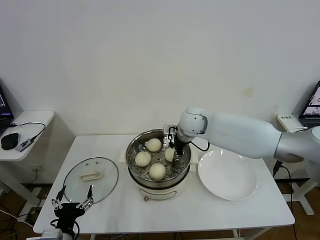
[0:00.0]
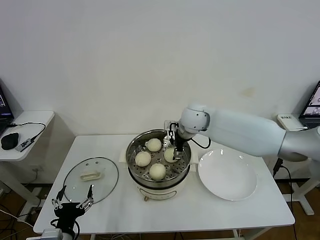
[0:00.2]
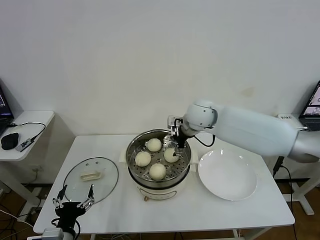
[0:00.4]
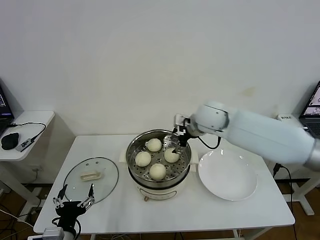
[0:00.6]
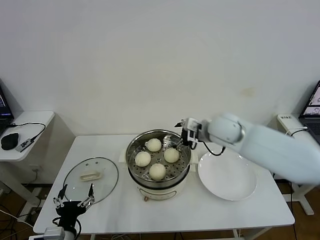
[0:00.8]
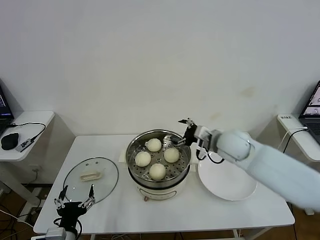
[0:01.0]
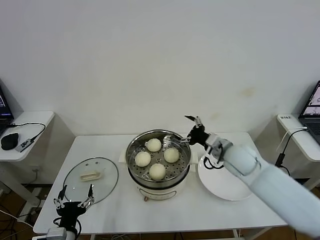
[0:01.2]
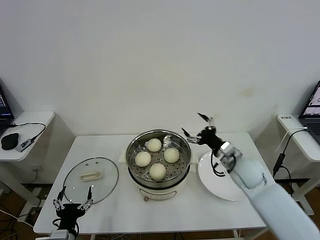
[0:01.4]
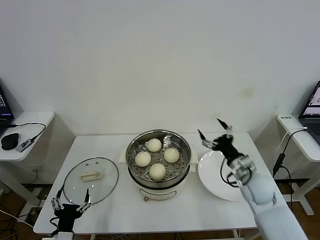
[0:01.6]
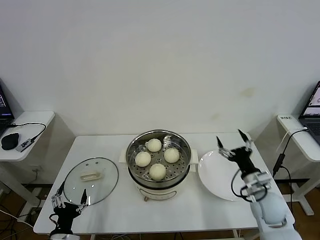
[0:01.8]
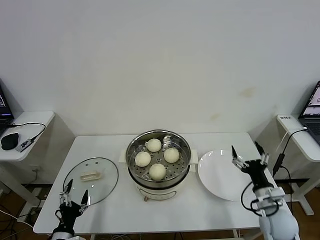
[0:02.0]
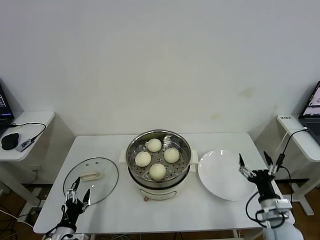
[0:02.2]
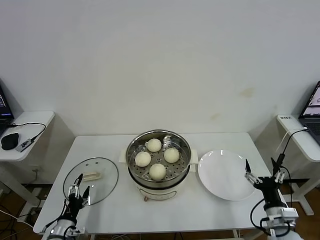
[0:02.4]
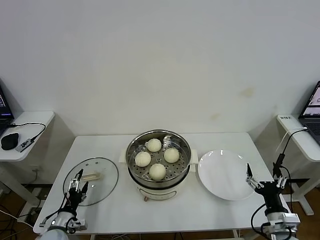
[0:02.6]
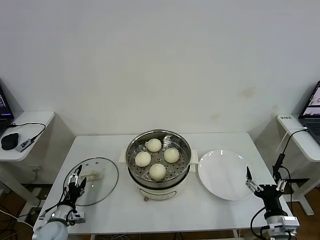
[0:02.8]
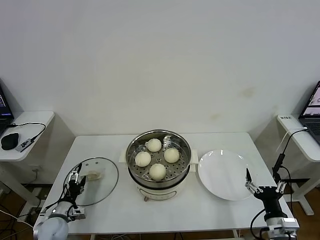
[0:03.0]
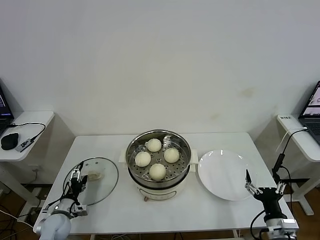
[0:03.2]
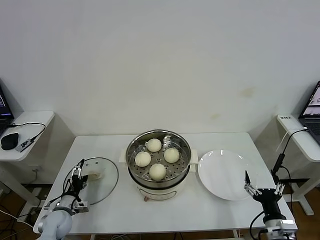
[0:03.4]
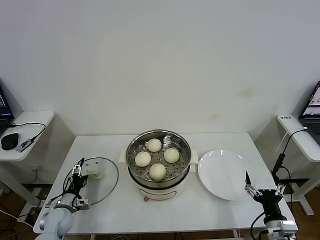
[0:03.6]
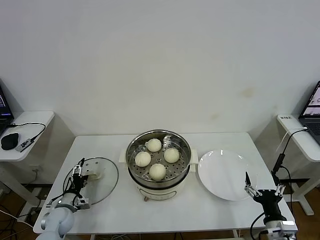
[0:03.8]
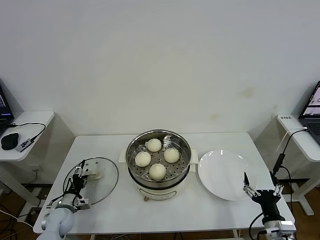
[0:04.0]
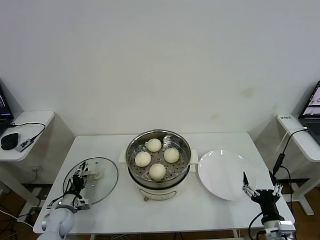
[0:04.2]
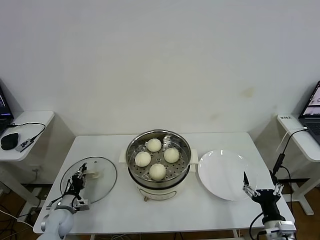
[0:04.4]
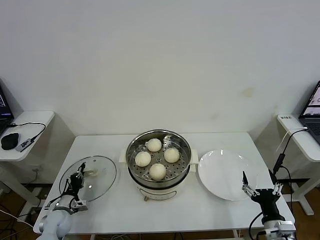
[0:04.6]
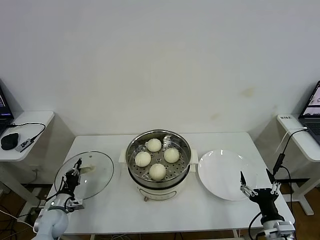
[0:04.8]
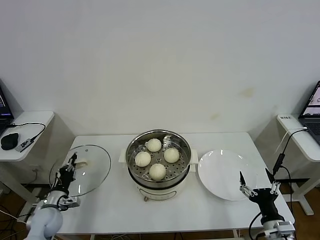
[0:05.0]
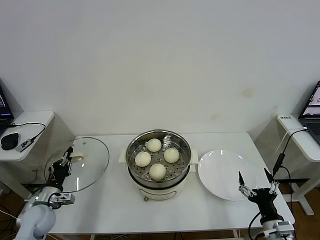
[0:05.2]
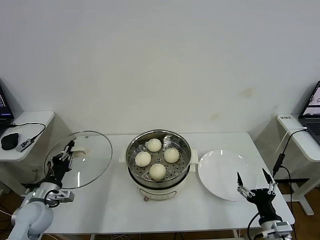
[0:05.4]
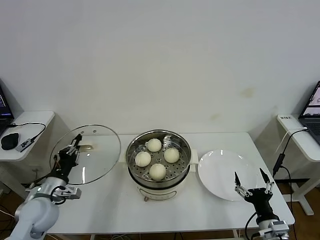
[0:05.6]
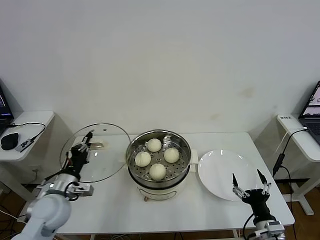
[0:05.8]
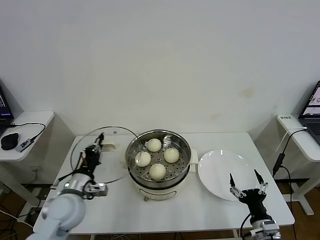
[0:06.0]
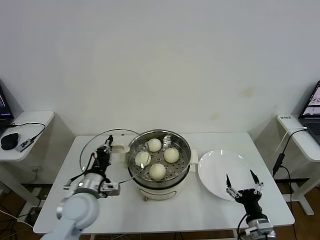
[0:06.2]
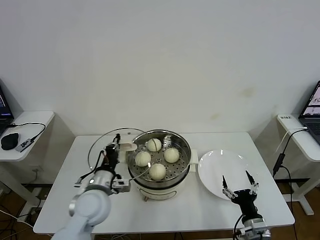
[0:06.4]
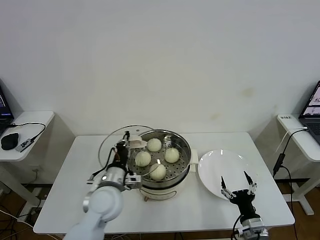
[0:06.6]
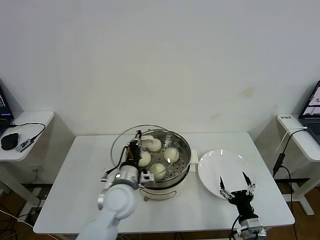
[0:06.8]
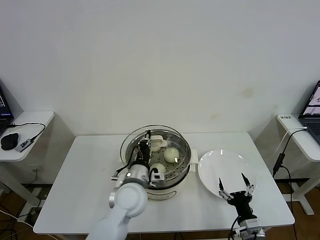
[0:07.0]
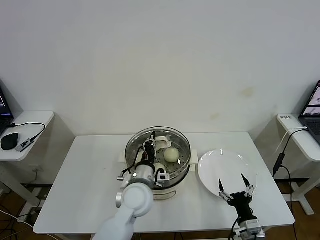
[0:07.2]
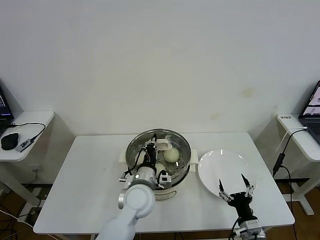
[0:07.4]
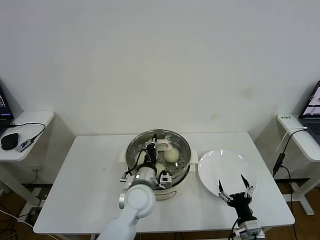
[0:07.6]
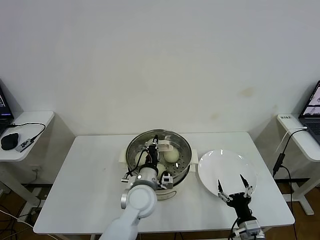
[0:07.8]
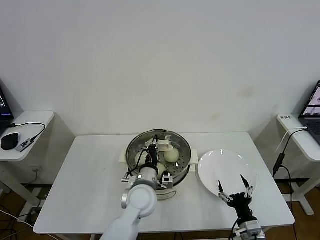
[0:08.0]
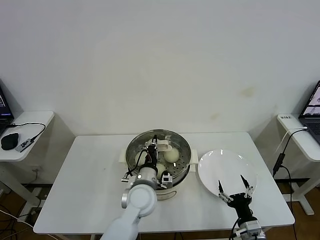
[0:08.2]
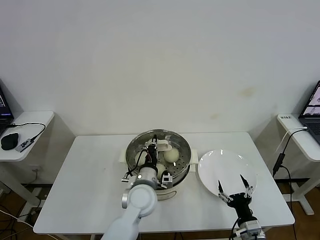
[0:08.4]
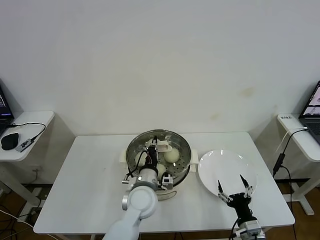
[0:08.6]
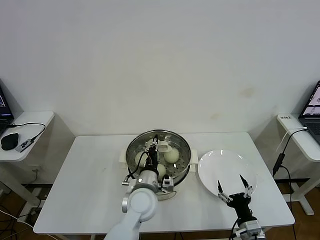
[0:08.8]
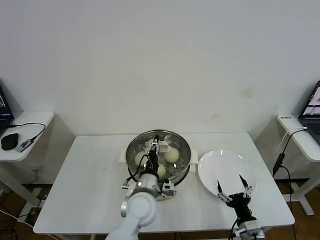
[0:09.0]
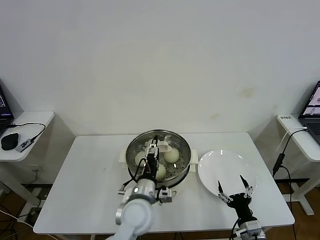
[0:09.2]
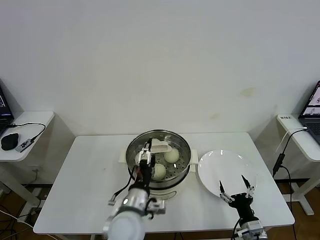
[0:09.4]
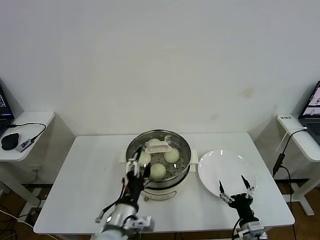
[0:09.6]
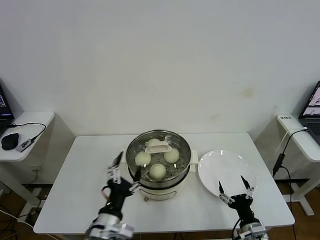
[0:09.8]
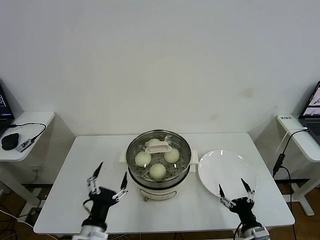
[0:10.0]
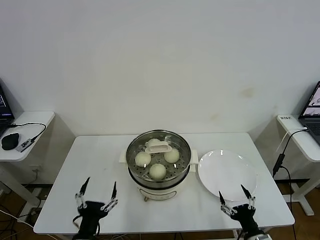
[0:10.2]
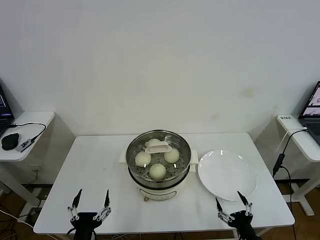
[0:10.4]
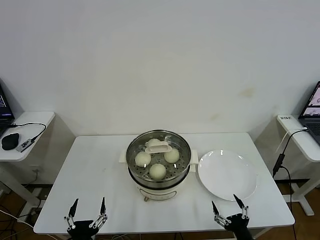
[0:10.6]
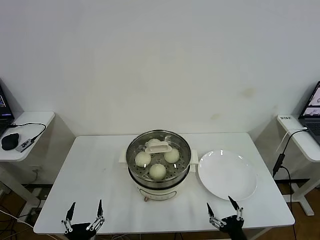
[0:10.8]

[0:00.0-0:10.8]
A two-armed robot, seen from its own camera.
Task of the whole recording: take steamed baozi put them in steamer then cover it.
Step, 0:00.4 to 0:04.6: Grasp the pot lid with left gripper.
Step, 0:04.8 to 0:09.0: Place the pot lid on the steamer with left gripper.
0:00.0 to 0:01.6: The left gripper is displaced downward by roughly 5 cm, while the right gripper goes about 30 cm to the right, backward and downward, and opens.
0:01.6 to 0:03.0: The right gripper is displaced backward by about 20 cm, while the left gripper moves forward, to the left and downward, roughly 20 cm.
0:03.0 to 0:04.6: The left gripper closes its fingers.
0:04.6 to 0:06.2: The left gripper moves upward and to the right, some 25 cm.
0:06.2 to 0:07.8: The left gripper moves to the right, about 15 cm.
0:07.8 to 0:09.2: The left gripper opens up.
0:09.2 to 0:10.8: The right gripper travels backward by some 5 cm; the left gripper shifts approximately 25 cm backward and to the left.
